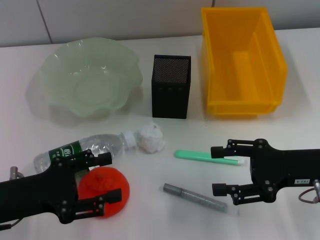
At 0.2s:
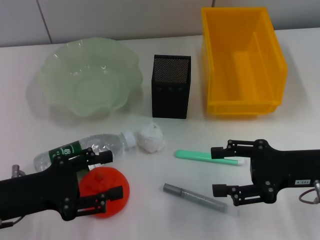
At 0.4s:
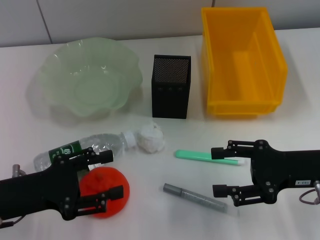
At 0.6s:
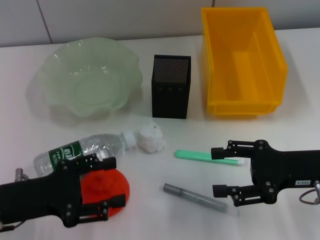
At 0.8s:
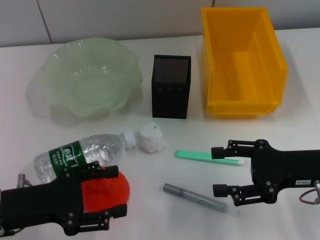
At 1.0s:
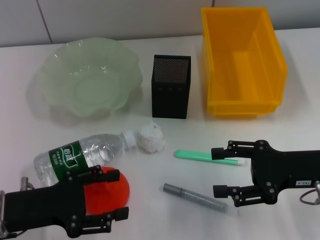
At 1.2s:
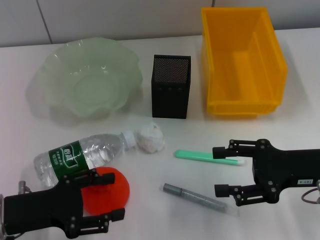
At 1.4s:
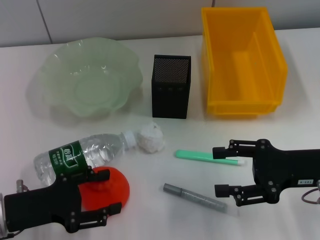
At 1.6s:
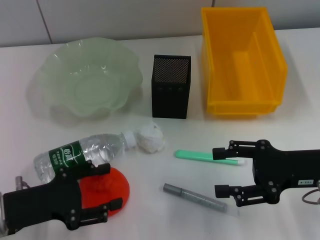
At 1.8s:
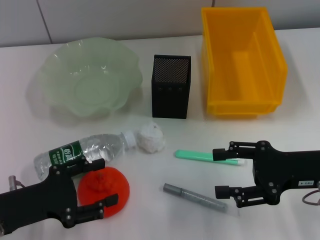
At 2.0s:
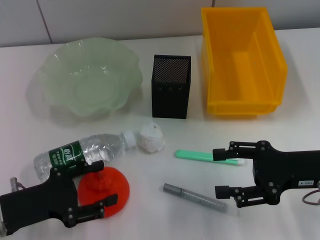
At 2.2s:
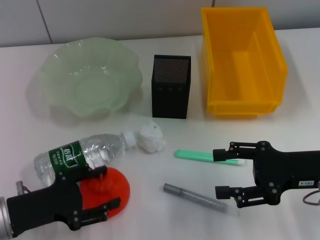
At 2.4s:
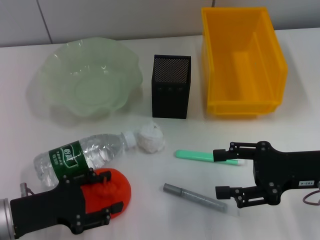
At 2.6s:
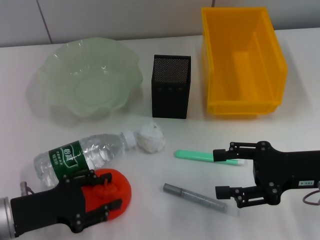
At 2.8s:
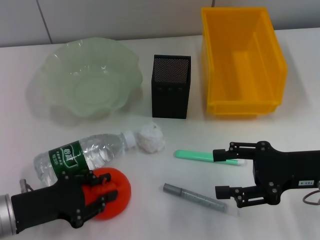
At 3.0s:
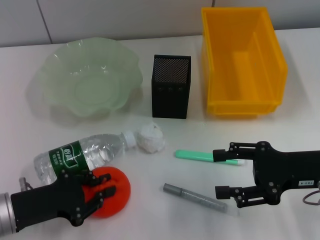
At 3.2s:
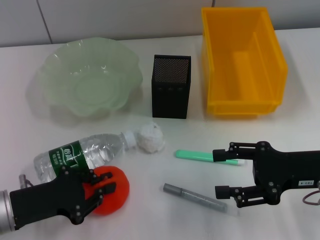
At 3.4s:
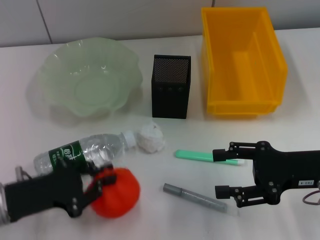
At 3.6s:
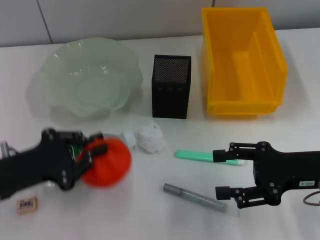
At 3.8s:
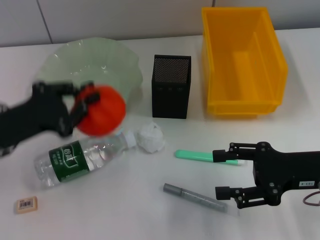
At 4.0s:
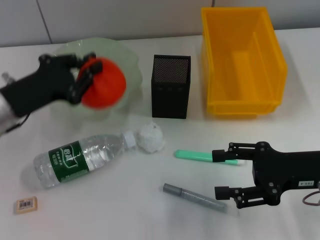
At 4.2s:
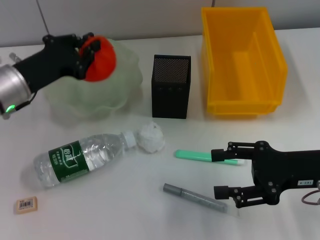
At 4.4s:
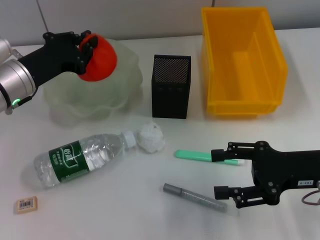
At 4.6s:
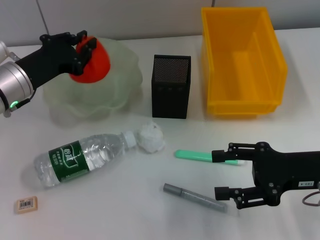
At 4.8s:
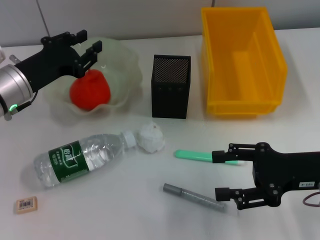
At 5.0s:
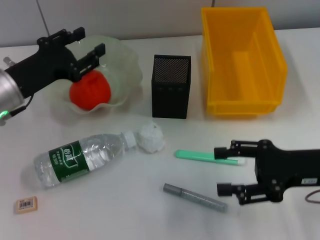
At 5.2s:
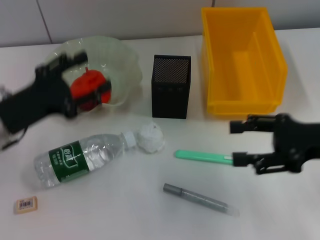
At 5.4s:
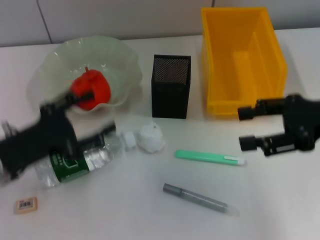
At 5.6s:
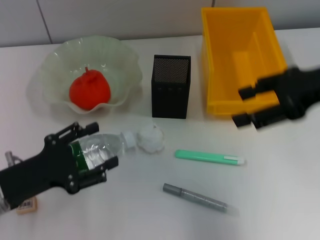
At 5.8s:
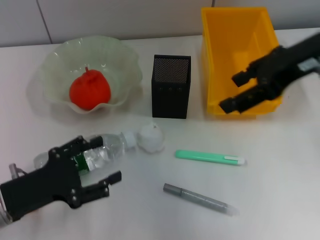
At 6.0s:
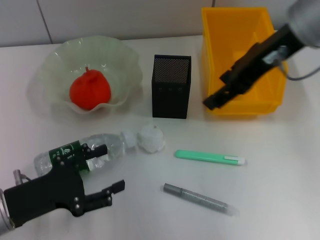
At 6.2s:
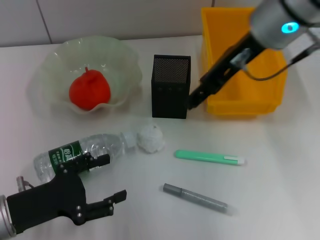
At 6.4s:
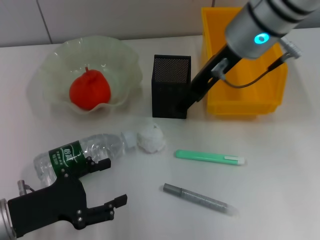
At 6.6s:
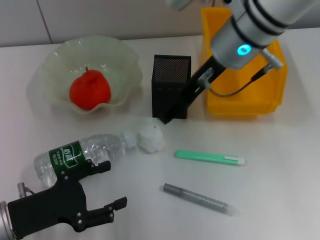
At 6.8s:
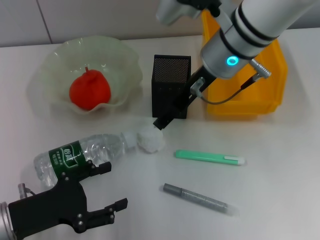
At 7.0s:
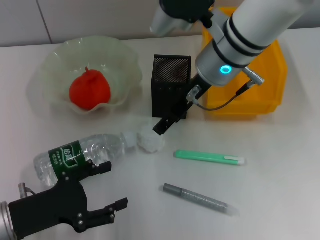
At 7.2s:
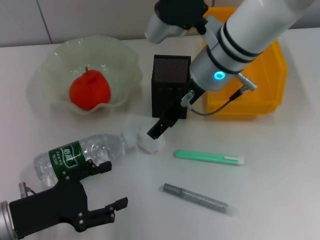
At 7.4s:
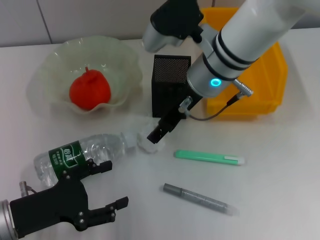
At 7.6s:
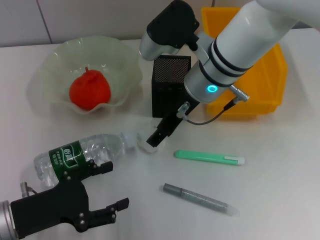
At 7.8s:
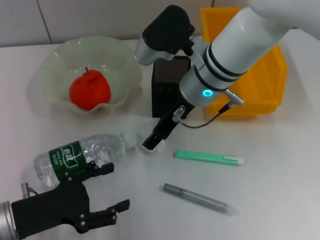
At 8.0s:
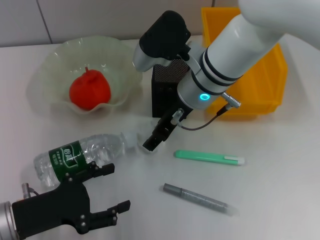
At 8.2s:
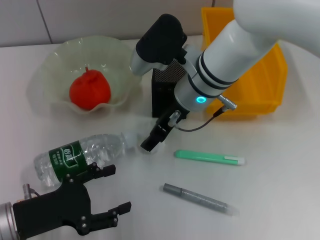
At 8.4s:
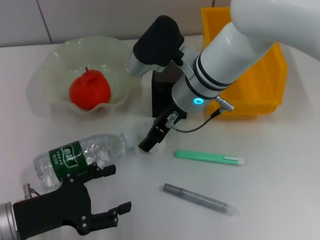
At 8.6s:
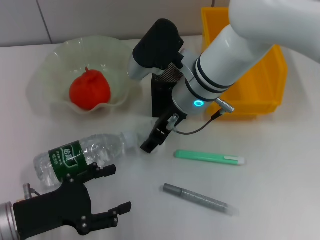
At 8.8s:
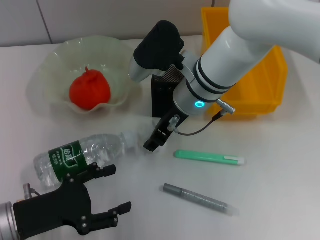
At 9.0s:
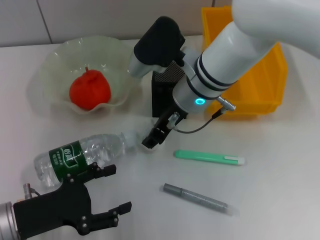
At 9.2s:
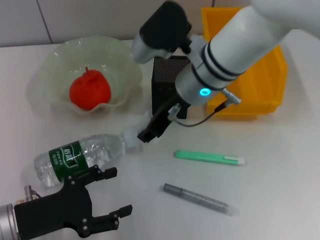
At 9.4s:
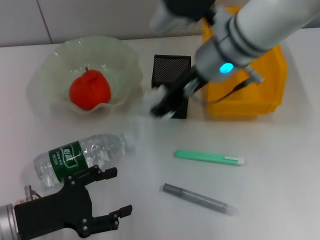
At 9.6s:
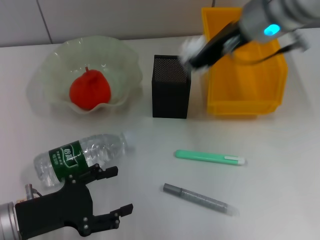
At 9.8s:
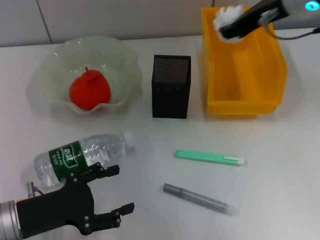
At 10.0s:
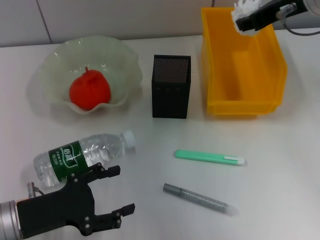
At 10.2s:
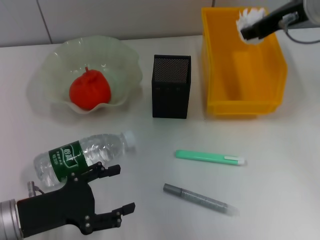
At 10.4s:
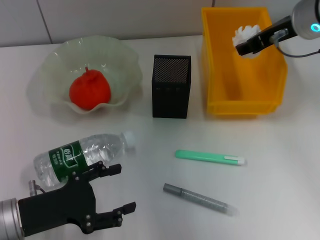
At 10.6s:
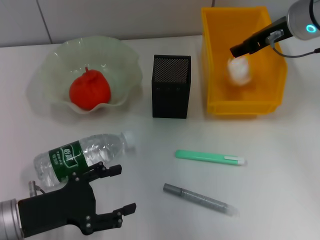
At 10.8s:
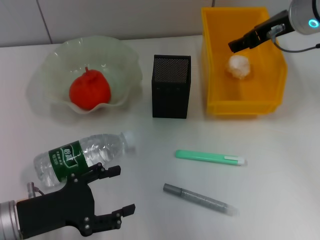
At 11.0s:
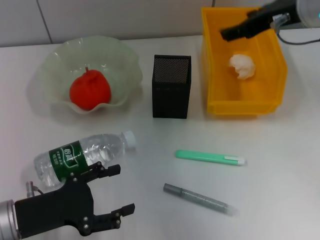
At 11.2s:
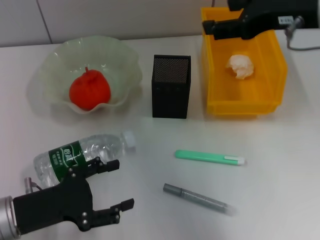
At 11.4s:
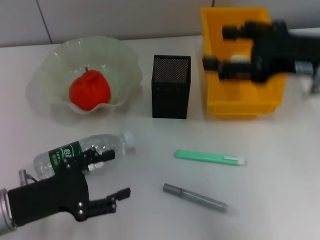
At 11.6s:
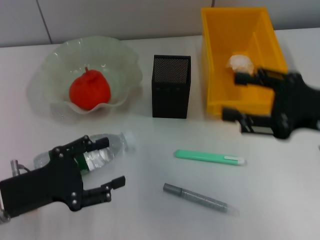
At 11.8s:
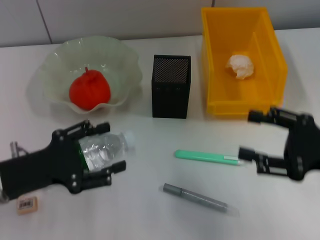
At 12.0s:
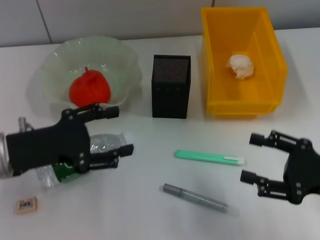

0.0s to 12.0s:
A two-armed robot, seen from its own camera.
Step, 0.0s to 3.0s: Grab the orange with the left hand.
Step, 3.2s to 4.8s: Place the orange into the fruit bowl with the left hand.
Step, 5.0s to 8.8s: Grab the paper ball with the right hand.
Step, 9.0s to 10.6s: Place the paper ball into the trash can with the right hand.
0.0s to 1.6s: The grippers make only small movements.
1.6s to 3.0s: The left gripper closes its fingers.
3.0s to 4.4s: The left gripper heads forward and upward, covering about 15 cm, and closes its fingers.
4.4s to 6.0s: The left gripper is displaced backward by roughly 15 cm, and opens, while the right gripper is displaced upward, forward and to the left by roughly 25 cm.
6.0s to 7.6s: The right gripper heads downward and to the left, covering about 15 cm.
7.6s to 9.0s: The right gripper closes up.
9.0s to 10.4s: The right gripper heads to the right and upward, covering some 15 cm.
10.4s to 12.0s: The right gripper travels backward and downward by roughly 25 cm, and opens its fingers; the left gripper travels upward and forward by some 10 cm.

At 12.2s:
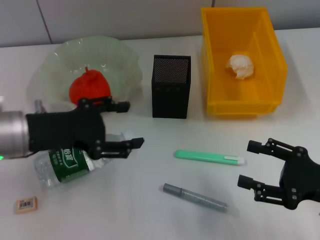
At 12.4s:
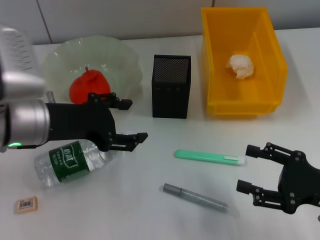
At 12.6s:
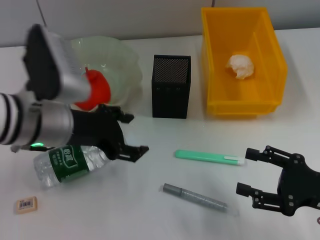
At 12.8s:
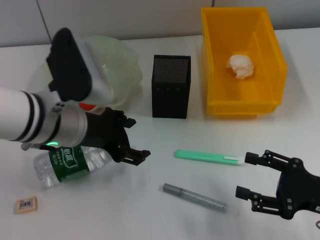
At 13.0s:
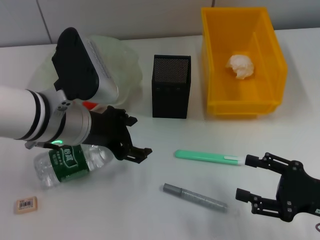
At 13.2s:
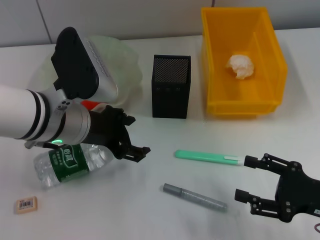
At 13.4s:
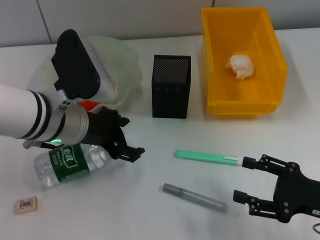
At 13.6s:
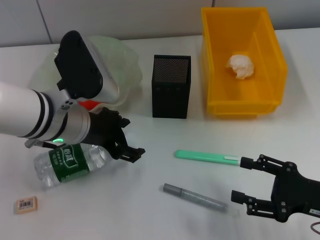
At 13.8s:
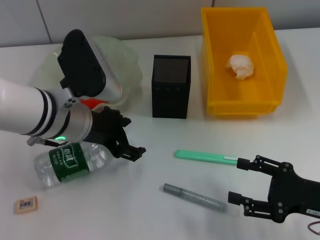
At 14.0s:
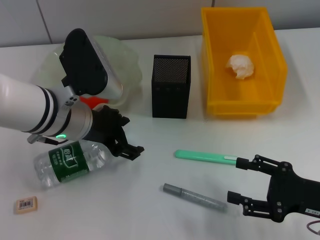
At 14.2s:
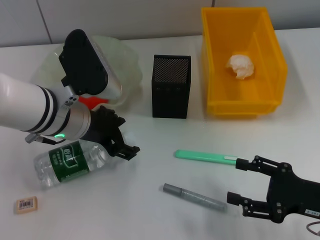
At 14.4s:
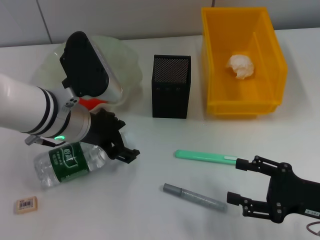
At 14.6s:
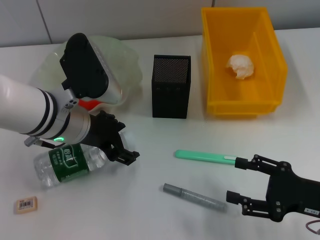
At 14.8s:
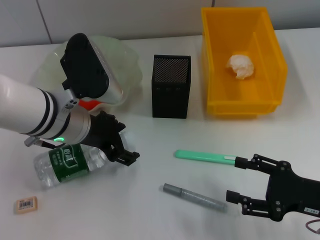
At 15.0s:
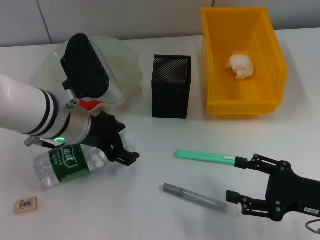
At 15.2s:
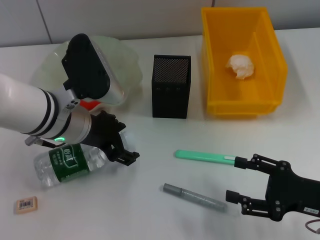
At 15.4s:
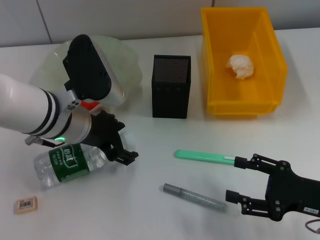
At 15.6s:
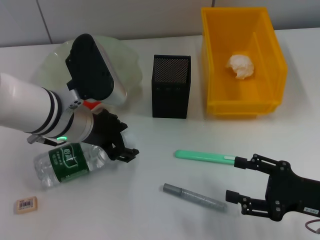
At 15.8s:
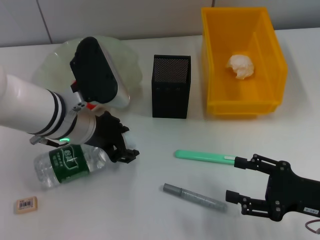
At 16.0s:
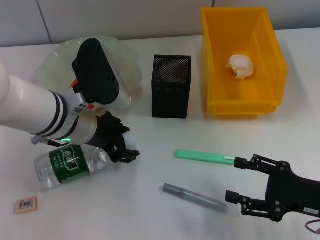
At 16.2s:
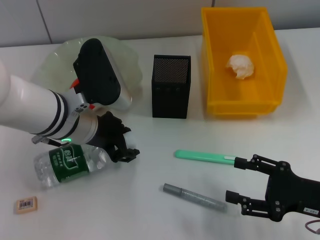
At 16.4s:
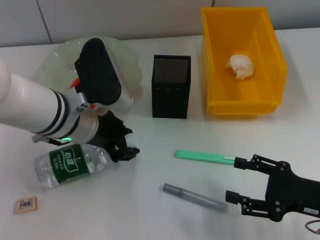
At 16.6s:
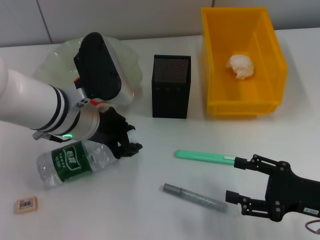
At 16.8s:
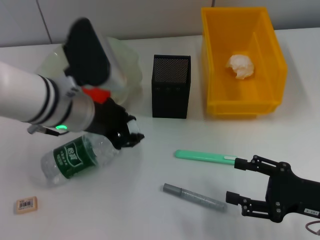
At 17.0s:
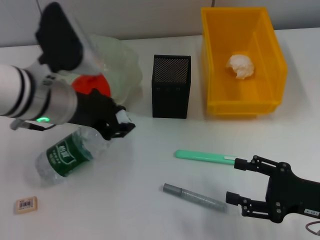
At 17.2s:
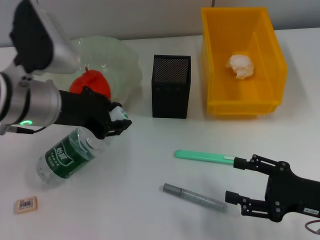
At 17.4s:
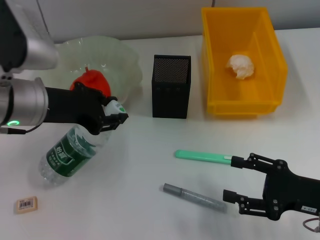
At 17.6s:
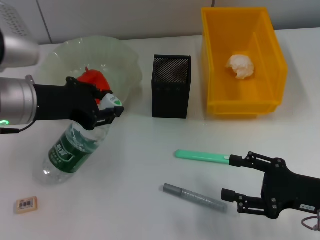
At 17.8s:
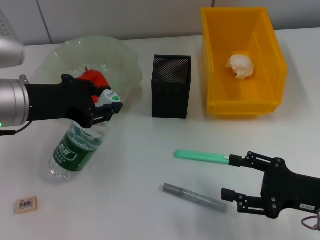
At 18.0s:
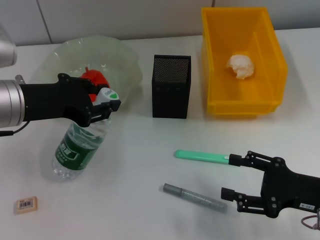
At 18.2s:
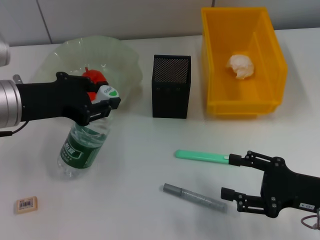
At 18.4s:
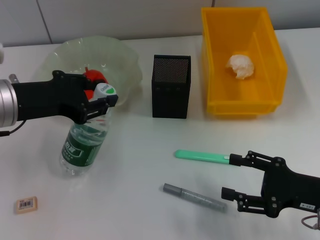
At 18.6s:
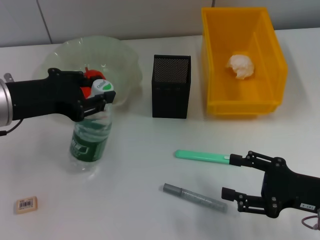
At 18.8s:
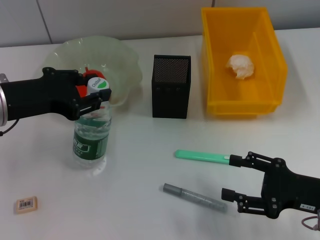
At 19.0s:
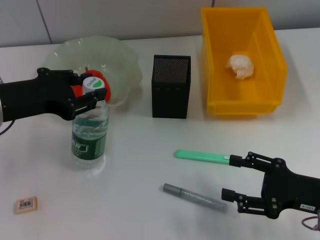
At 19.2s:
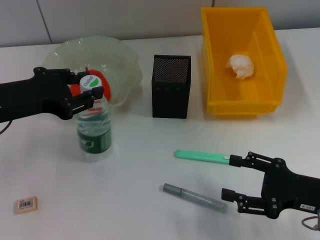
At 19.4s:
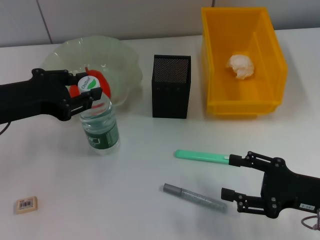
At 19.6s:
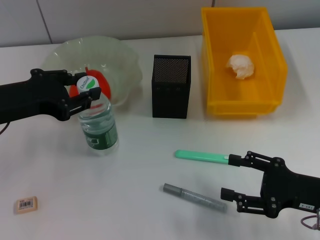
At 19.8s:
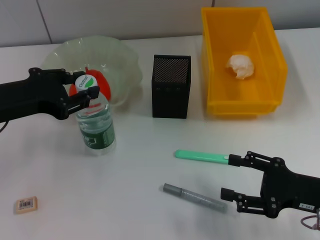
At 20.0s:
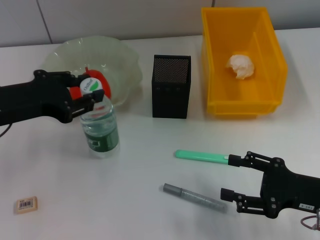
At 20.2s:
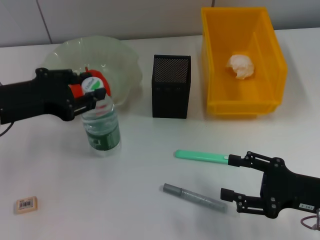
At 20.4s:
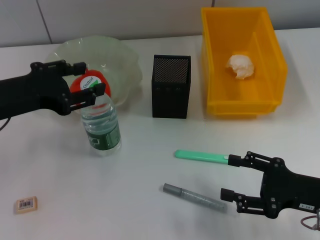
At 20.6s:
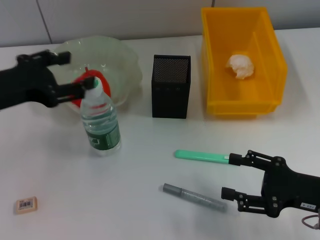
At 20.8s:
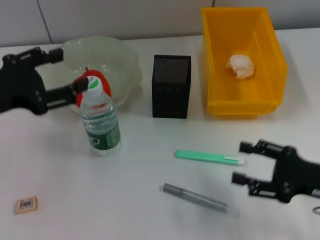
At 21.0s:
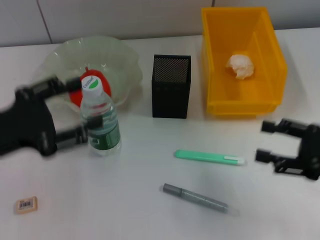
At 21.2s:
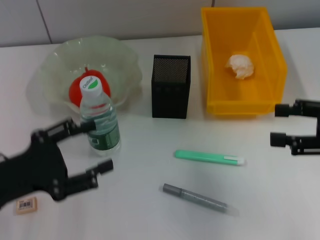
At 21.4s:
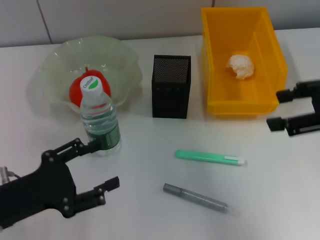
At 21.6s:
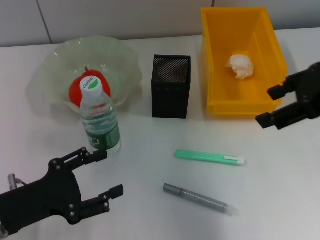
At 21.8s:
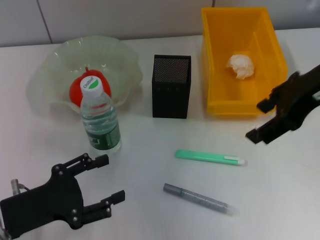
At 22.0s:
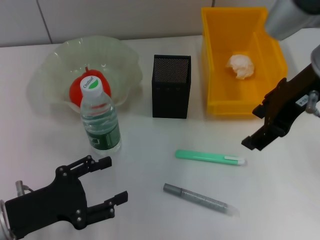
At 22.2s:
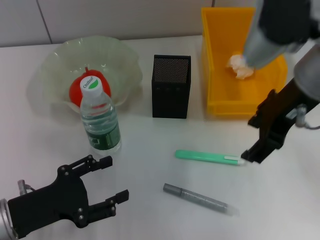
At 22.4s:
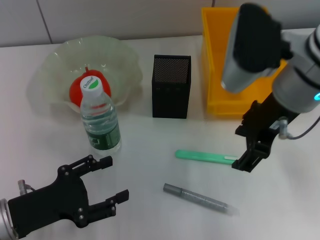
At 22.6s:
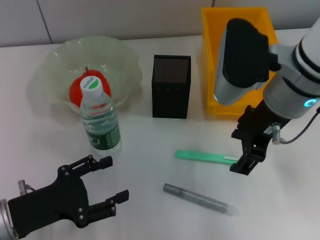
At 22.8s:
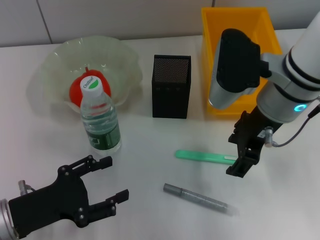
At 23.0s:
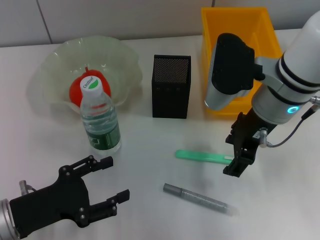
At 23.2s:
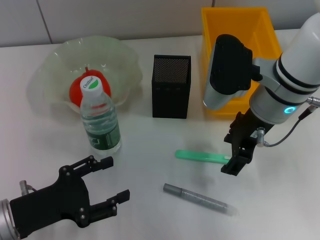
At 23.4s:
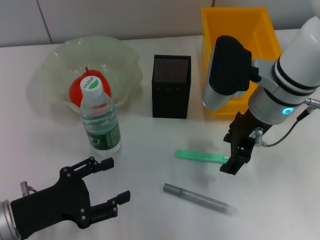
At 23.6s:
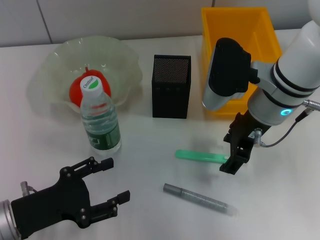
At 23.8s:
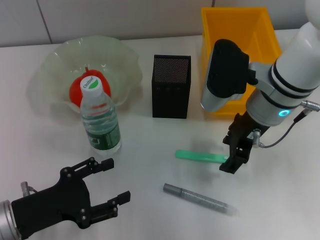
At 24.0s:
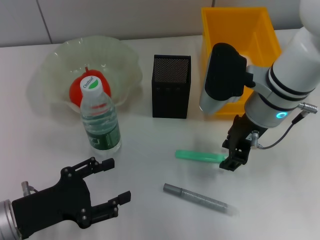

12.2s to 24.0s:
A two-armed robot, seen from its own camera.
Step, 12.2s to 16.4s: Grab the water bottle with the left hand.
Step, 16.6s to 20.6s: Place the water bottle on the table with the left hand.
12.2s to 13.6s: The left gripper travels to the right by roughly 10 cm.
13.6s to 15.2s: Both grippers stay about where they are.
15.2s to 16.6s: The left gripper closes up.
16.6s to 18.2s: The left gripper is displaced to the left by roughly 10 cm.
18.2s to 19.6s: The grippers stay close to where they were, moving slightly.
19.6s to 21.0s: The left gripper moves roughly 5 cm, and opens, while the right gripper is displaced upward by roughly 5 cm.
21.0s to 22.6s: The right gripper heads to the left, forward and upward, covering about 20 cm; the left gripper heads downward, covering some 10 cm.
22.6s to 24.0s: The right gripper heads downward, covering about 5 cm.
